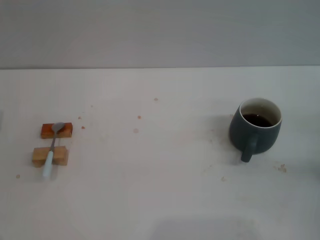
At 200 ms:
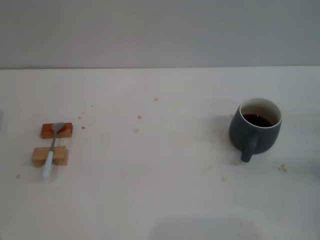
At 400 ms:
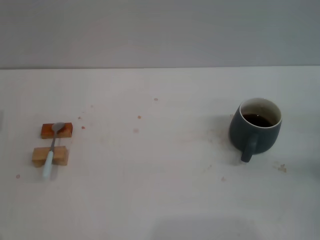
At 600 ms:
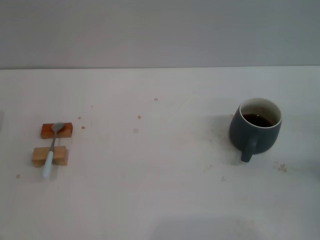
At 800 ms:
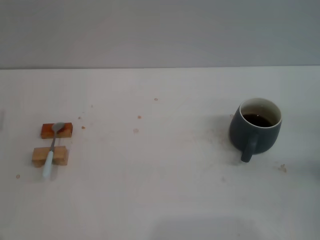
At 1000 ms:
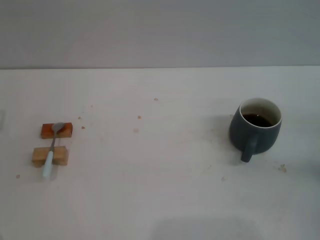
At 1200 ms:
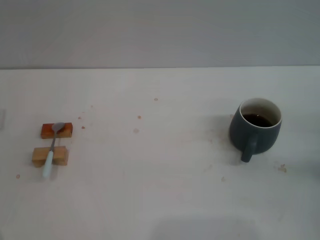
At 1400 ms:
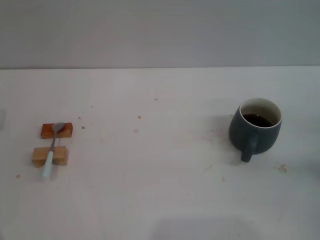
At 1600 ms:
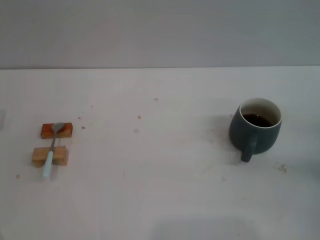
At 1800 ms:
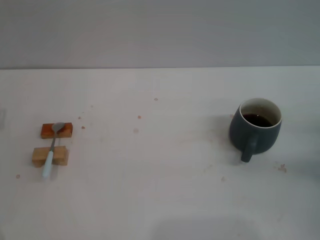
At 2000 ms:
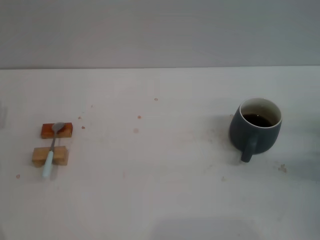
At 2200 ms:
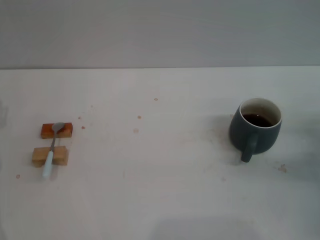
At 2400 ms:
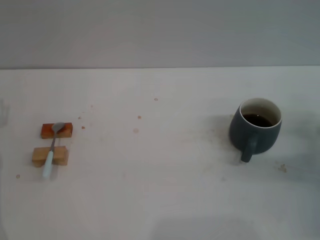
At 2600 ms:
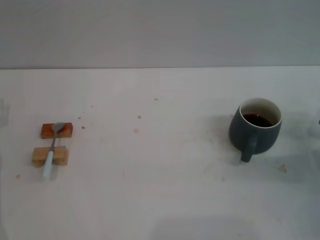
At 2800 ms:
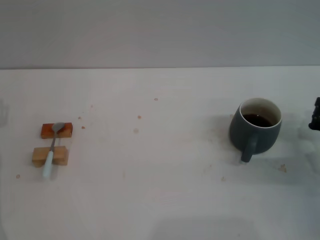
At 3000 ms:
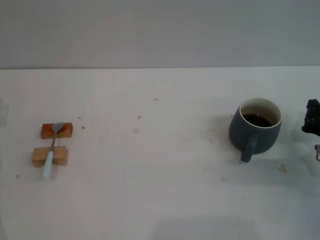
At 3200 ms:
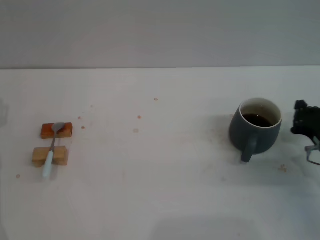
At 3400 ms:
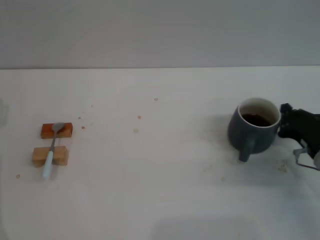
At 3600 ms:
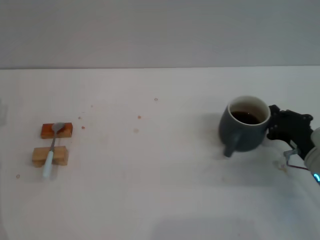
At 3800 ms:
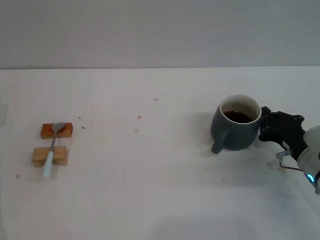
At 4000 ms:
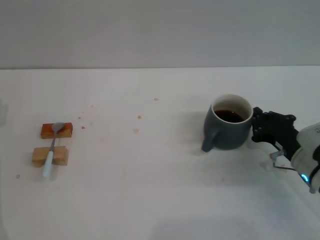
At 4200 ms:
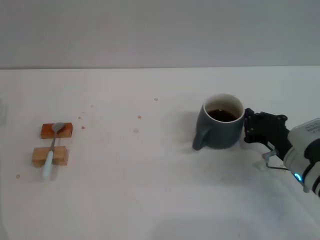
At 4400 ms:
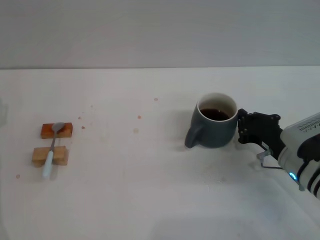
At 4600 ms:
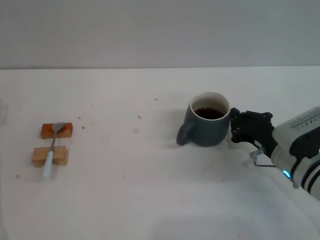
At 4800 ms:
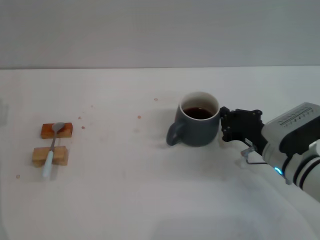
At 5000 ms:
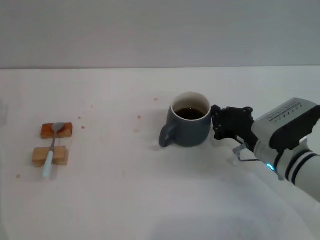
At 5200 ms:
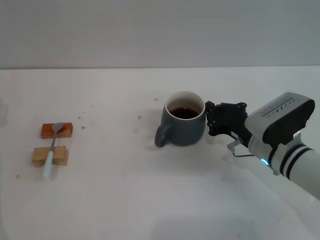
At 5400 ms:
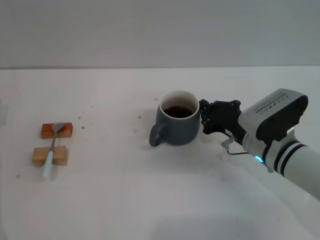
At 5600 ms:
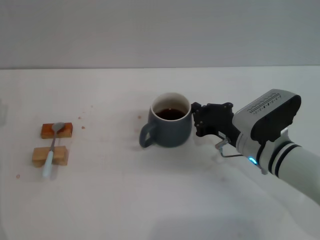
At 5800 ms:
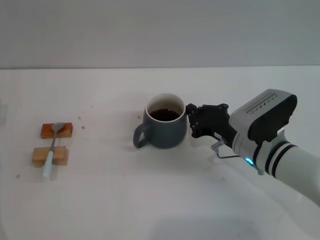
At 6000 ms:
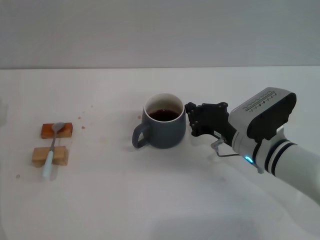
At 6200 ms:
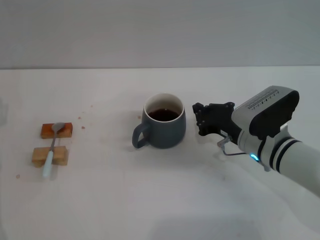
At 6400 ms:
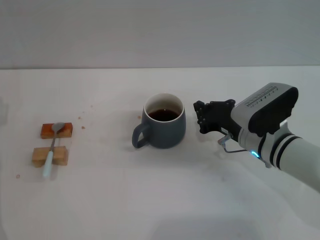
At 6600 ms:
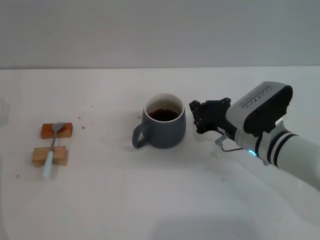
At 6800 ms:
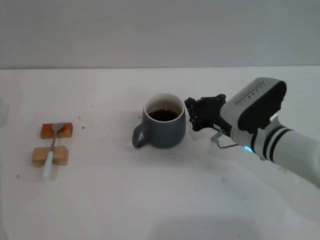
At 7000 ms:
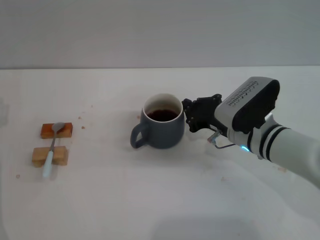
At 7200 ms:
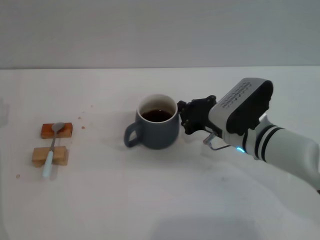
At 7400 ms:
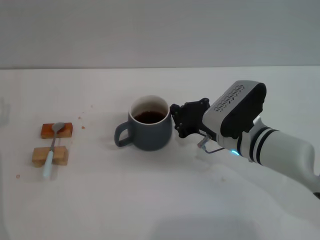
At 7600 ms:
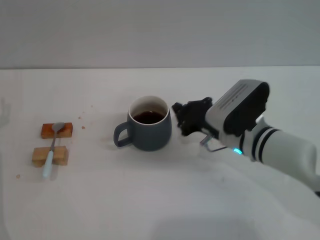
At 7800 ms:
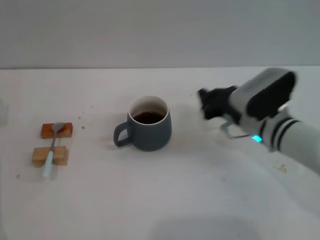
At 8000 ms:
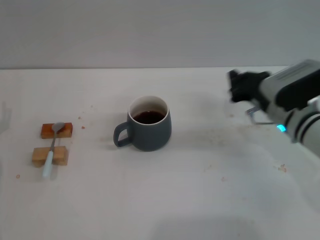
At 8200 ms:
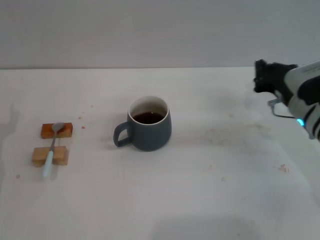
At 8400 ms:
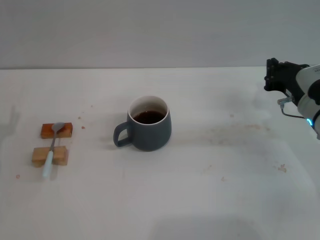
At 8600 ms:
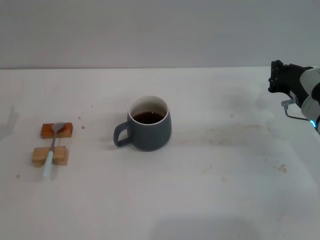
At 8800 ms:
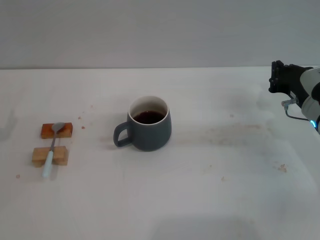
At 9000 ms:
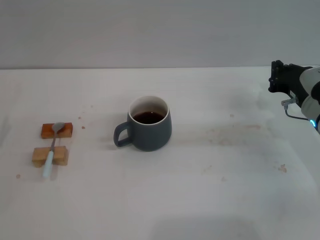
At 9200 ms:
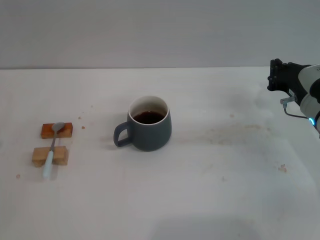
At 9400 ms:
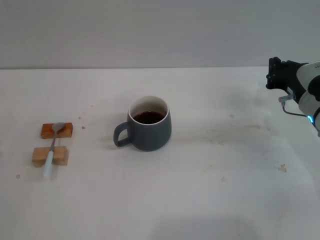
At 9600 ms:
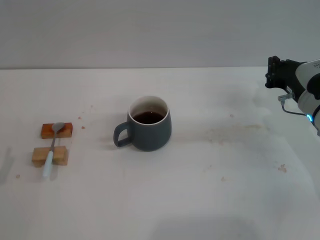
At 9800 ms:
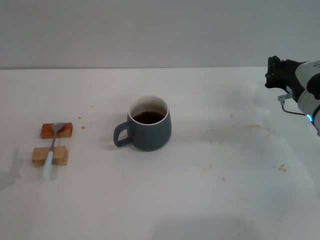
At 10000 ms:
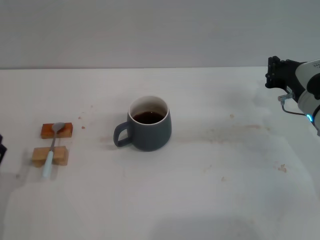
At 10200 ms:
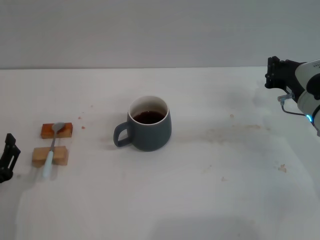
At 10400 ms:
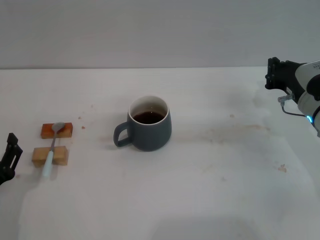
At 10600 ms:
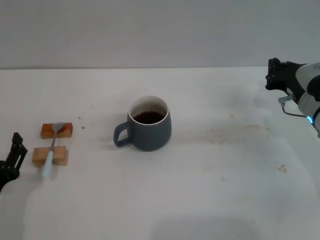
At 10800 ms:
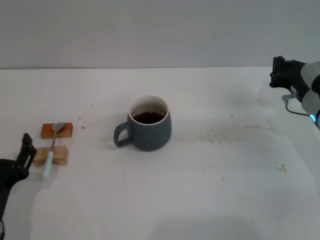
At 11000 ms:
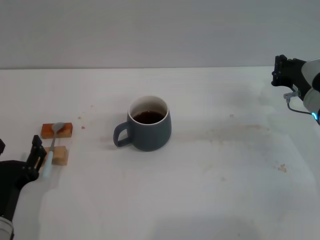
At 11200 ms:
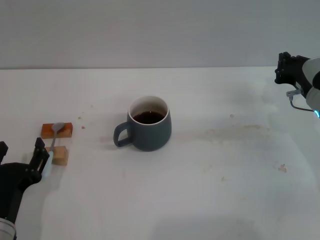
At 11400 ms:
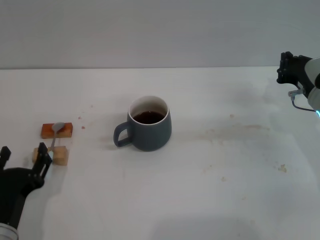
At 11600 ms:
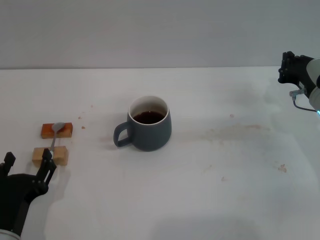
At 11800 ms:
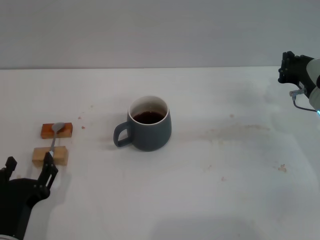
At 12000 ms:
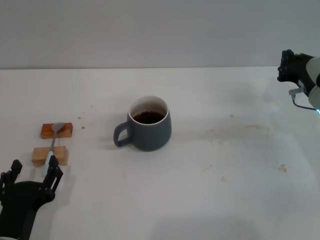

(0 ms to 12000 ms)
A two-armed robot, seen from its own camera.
Task of the whole recording: Move the grey cup to the center, lift the blue spoon, stir it three times in the cup, and put the spoon into the cup.
Step, 0 ms - 7800 ms: Move the cup with coffee to the center of view with the right gripper.
1600 ms - 3000 ms: The right gripper is displaced to the left by about 5 cm, and closes its fingers.
3000 ms - 4400 ms: The right gripper heads to the left, covering roughly 10 cm.
4400 ms - 6000 ms: The right gripper is displaced to the left by approximately 5 cm.
6000 ms - 7600 ms: There are only small adjustments of the grippers.
7600 ms - 9000 ms: The right gripper is displaced to the right by roughly 10 cm. The left gripper heads backward and to the left, covering some 10 cm.
9000 ms - 10400 ms: The left gripper shifts about 15 cm to the right and backward.
10400 ms - 12000 ms: The left gripper moves to the right, some 5 cm.

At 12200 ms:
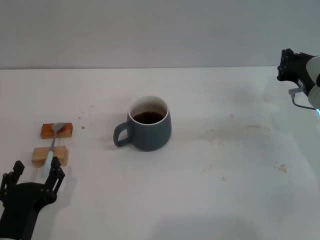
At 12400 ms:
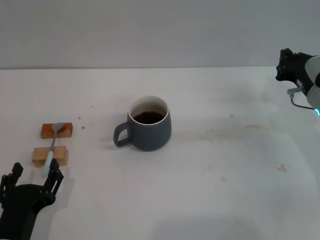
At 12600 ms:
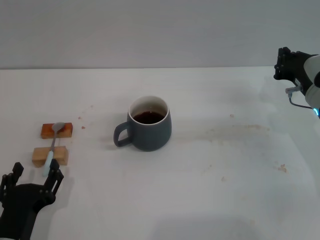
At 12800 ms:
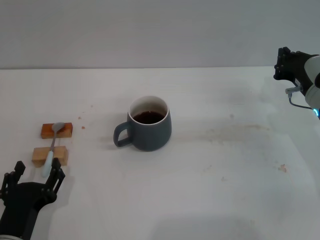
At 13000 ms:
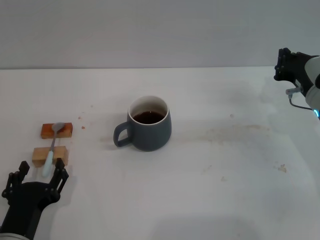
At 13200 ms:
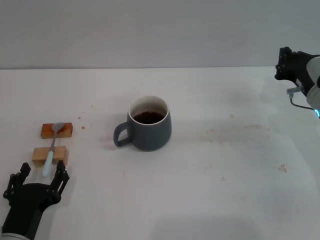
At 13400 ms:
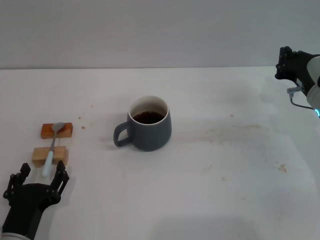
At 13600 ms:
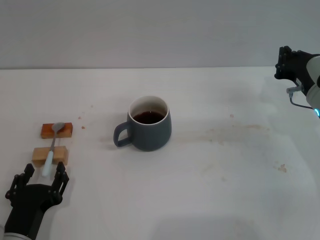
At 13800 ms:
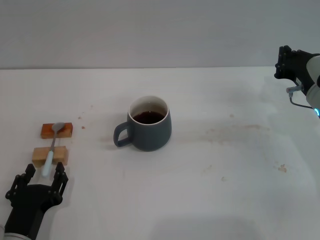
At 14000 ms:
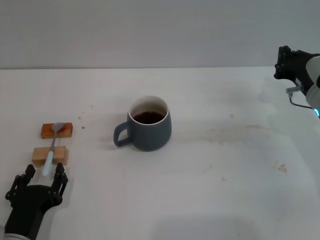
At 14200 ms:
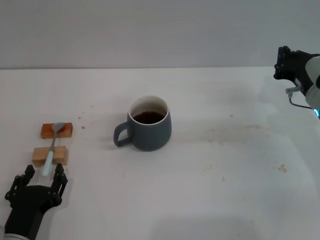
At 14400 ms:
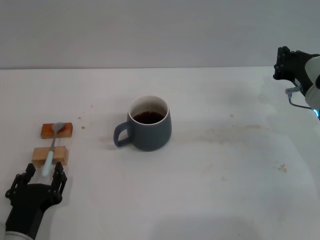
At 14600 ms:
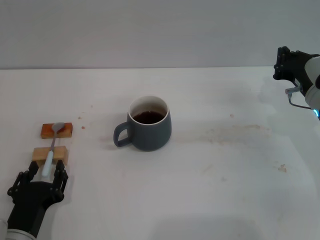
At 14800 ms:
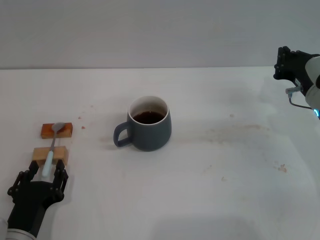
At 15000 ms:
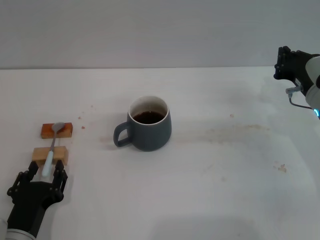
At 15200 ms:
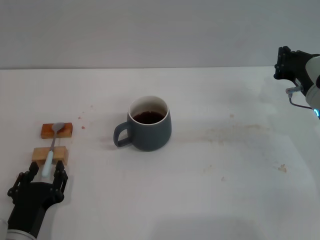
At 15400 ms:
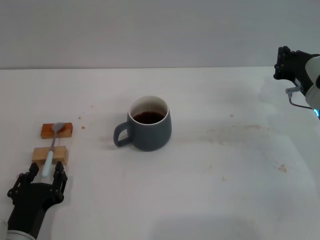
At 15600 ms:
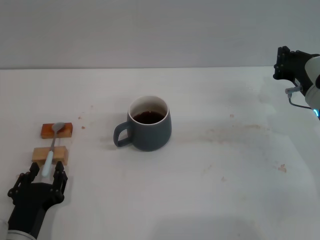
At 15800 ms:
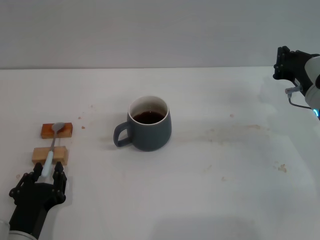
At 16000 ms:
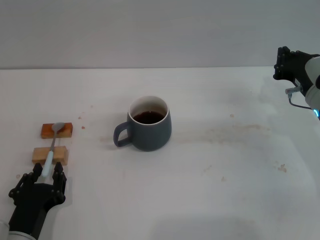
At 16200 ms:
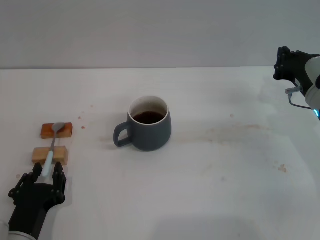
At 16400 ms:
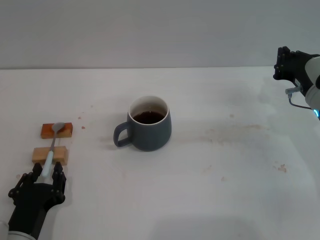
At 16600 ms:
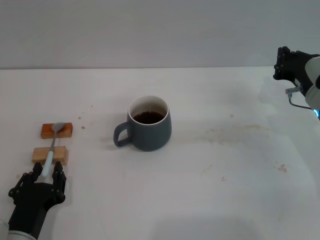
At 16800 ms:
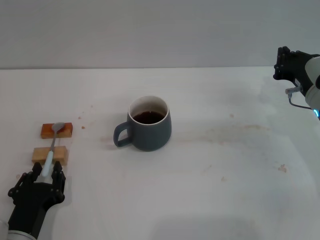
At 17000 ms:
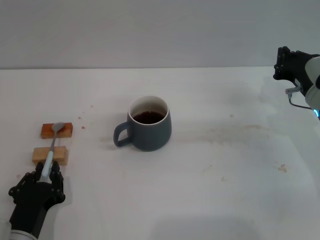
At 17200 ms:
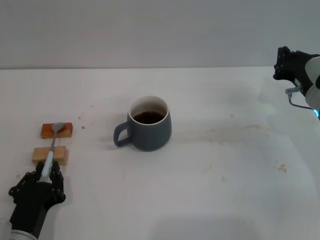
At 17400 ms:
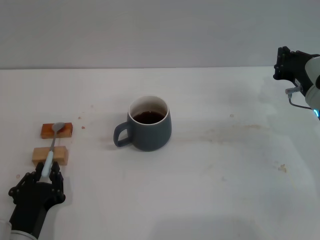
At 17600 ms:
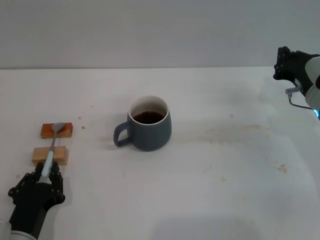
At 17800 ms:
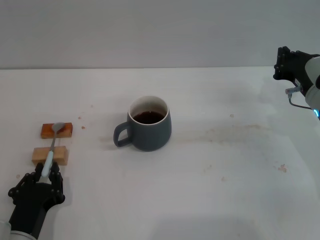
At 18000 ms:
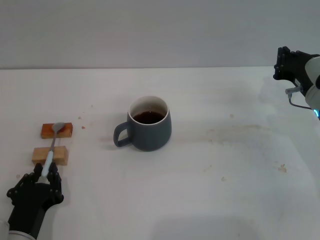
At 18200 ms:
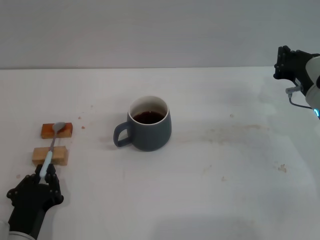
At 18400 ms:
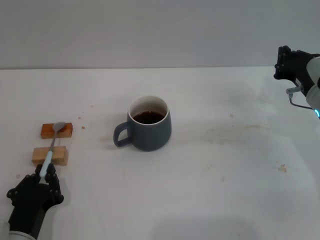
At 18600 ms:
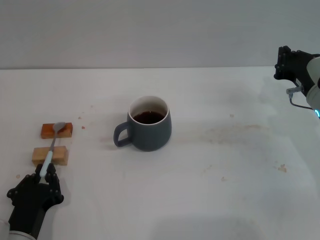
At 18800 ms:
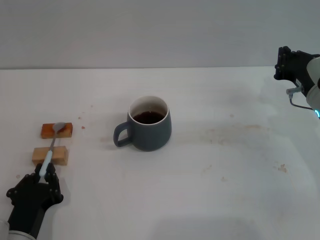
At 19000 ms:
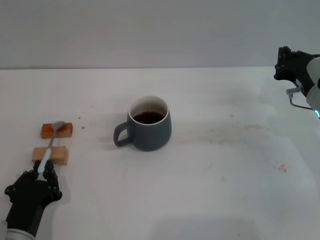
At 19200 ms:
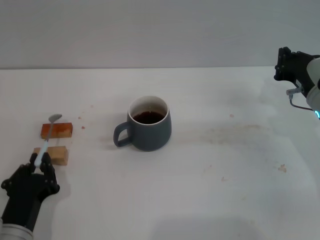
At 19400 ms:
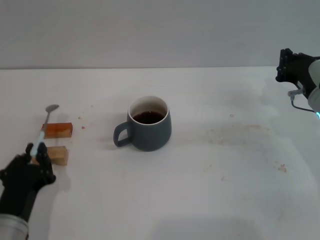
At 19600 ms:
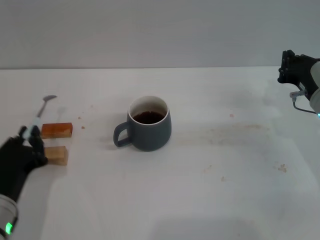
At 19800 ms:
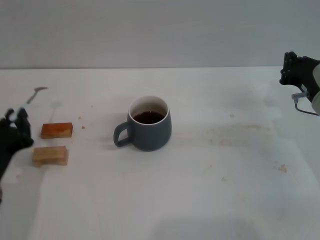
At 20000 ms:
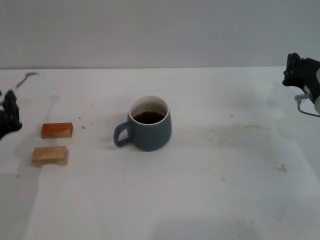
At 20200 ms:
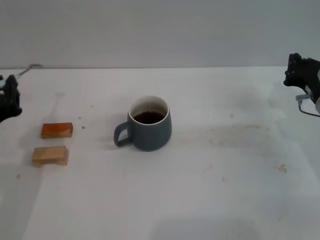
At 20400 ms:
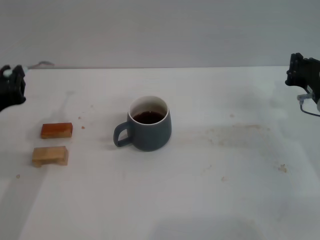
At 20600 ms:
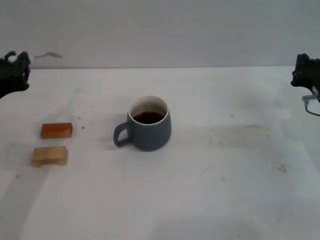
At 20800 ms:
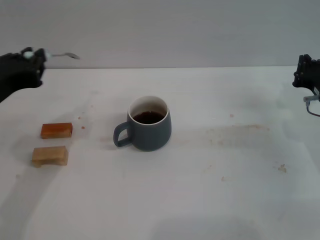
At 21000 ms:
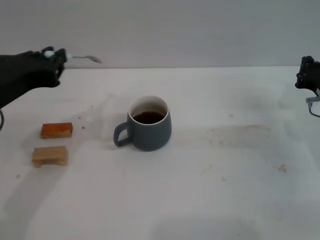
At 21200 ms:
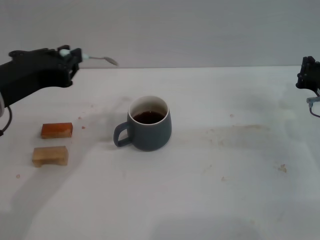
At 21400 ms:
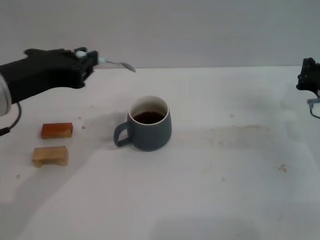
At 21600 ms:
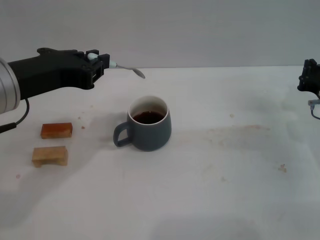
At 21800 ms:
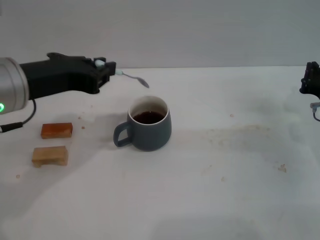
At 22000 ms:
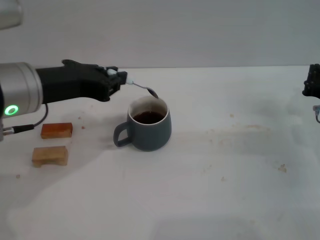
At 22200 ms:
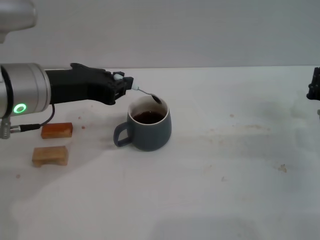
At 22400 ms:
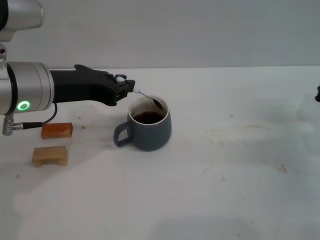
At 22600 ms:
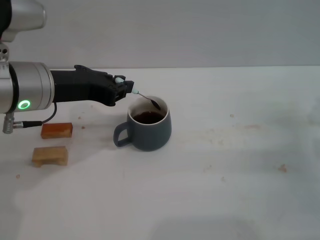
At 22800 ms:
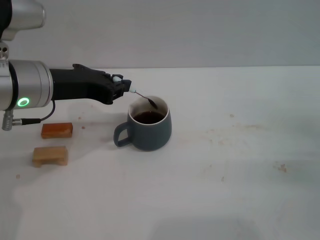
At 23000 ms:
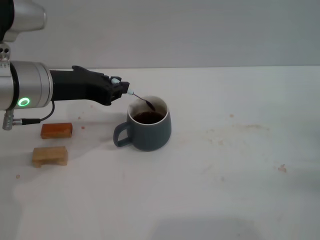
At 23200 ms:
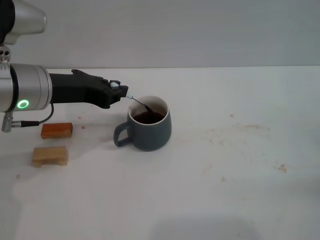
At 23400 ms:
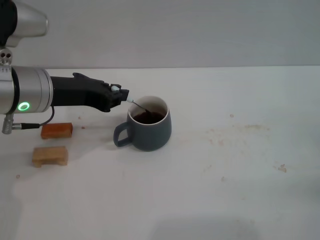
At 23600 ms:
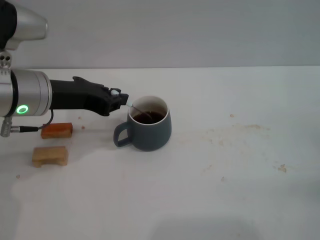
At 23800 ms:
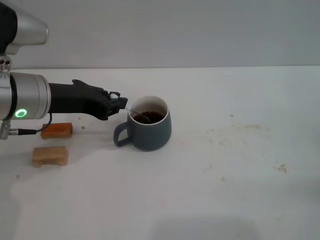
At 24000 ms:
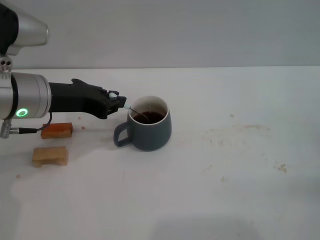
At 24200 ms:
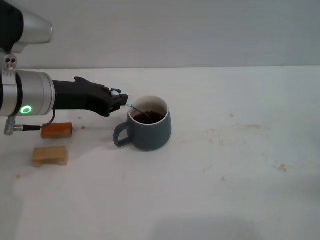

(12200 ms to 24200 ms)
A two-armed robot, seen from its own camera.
Task of the whole recording: Move the grey cup to the center, lift the blue spoon, stir it three times in the cup, and put the spoon into the cup.
Step, 12200 ms - 19800 ms: Pick up the spoon with the left gripper.
12200 ms - 13800 ms: The grippers stay close to where they were, moving slightly.
13800 ms - 18200 ms: Neither gripper changes place.
18200 ms - 19800 ms: The left gripper moves upward, roughly 10 cm.
19800 ms - 21200 ms: The left gripper moves upward, about 15 cm.
21200 ms - 22600 ms: The right gripper is displaced backward by some 5 cm, while the left gripper is displaced forward by approximately 5 cm.
22600 ms - 24200 ms: The right gripper moves to the right and backward, roughly 10 cm.
